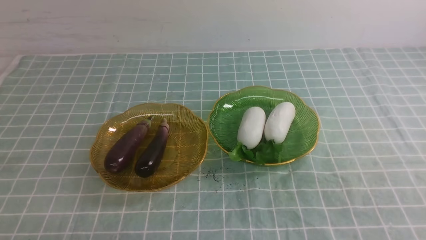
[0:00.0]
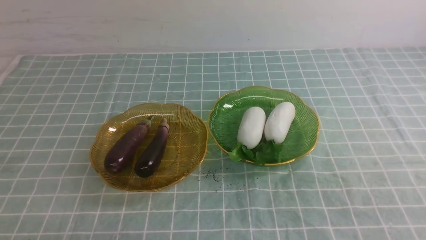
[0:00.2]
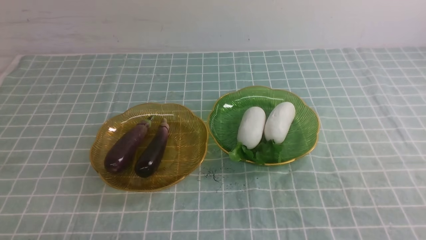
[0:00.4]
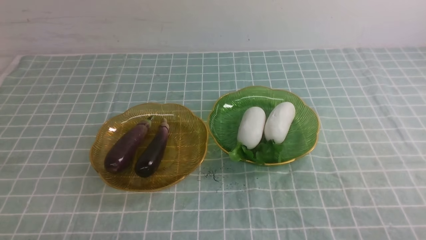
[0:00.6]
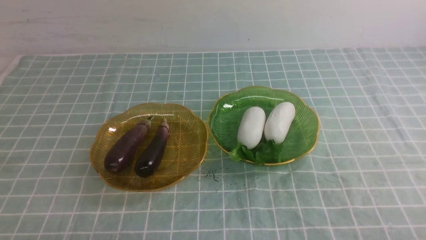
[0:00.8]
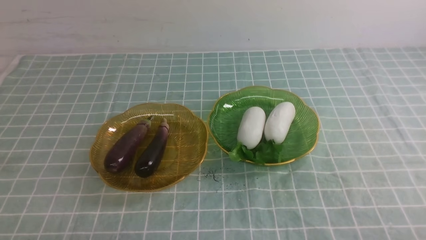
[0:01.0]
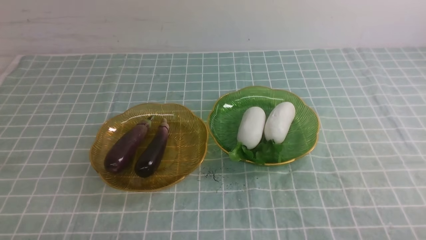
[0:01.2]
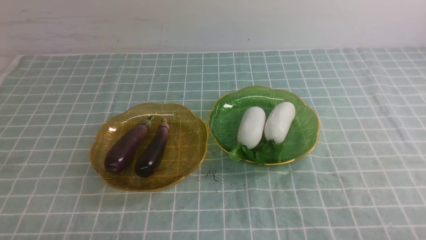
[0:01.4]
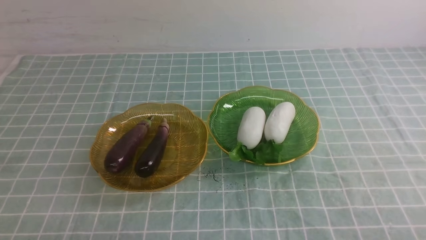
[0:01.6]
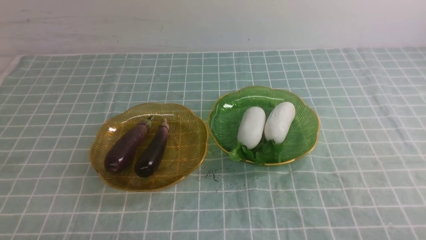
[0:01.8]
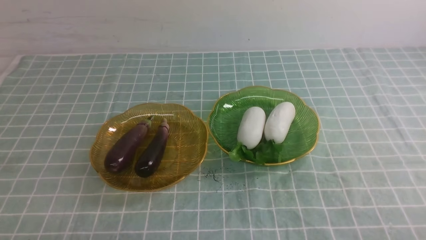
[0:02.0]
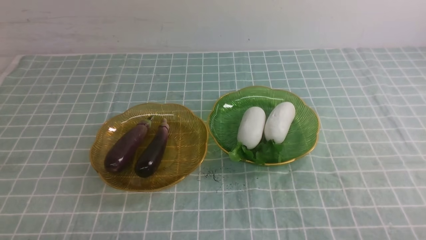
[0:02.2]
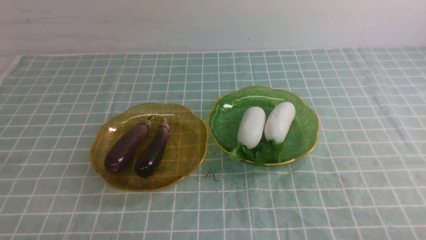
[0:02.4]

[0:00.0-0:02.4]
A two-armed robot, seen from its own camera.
0:01.2 to 0:02.4: Both grippers stay put.

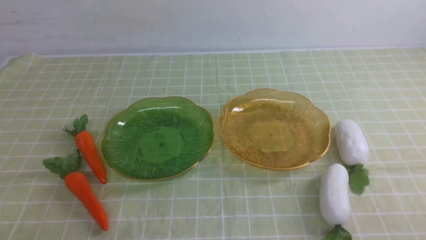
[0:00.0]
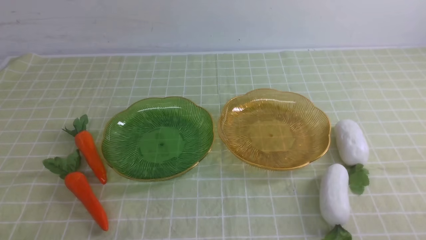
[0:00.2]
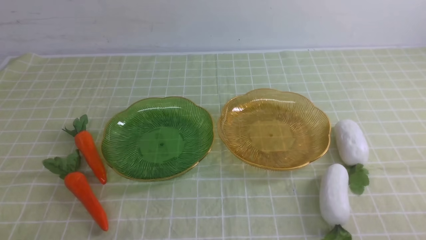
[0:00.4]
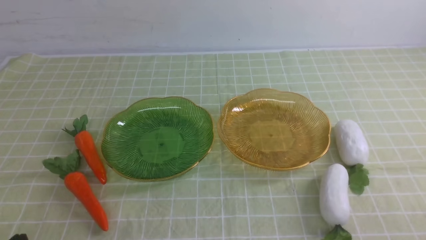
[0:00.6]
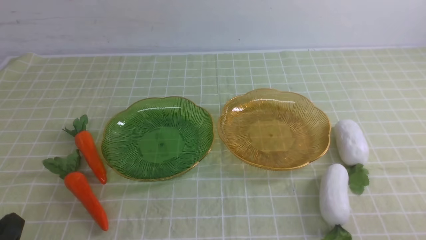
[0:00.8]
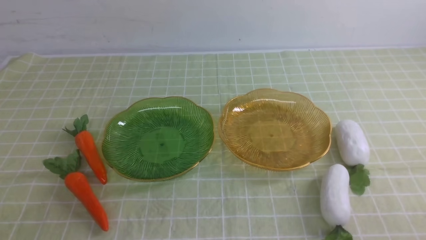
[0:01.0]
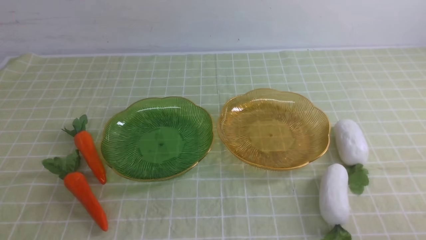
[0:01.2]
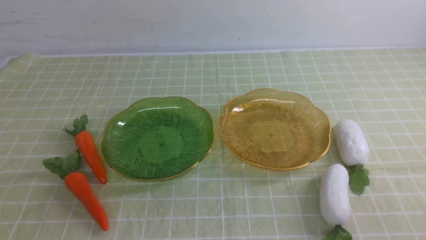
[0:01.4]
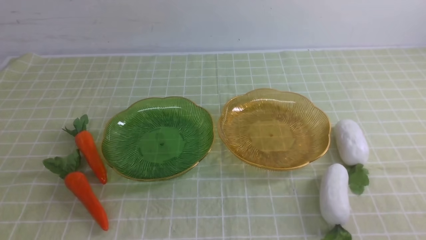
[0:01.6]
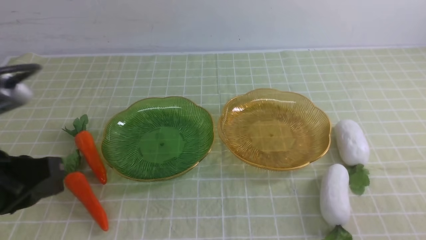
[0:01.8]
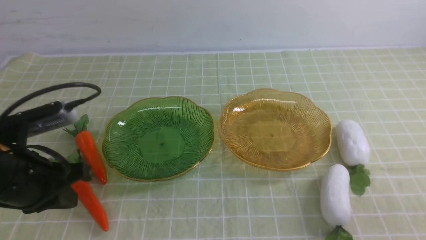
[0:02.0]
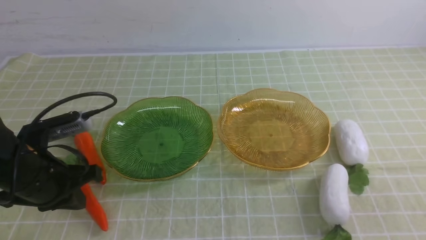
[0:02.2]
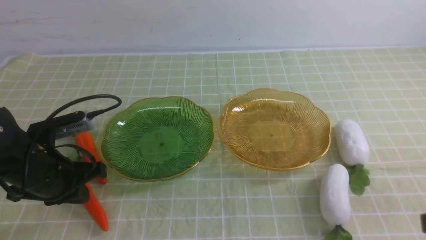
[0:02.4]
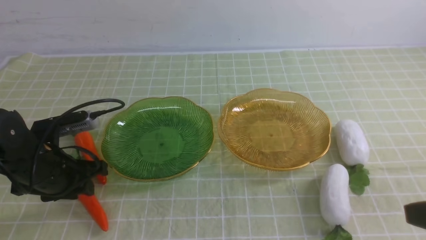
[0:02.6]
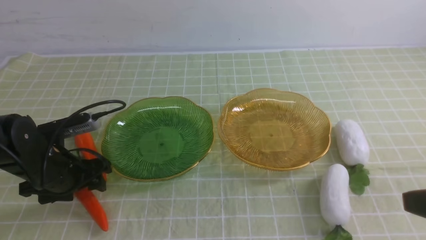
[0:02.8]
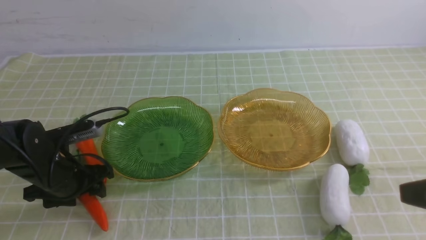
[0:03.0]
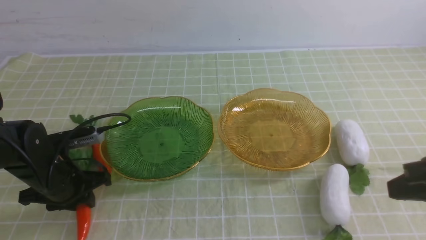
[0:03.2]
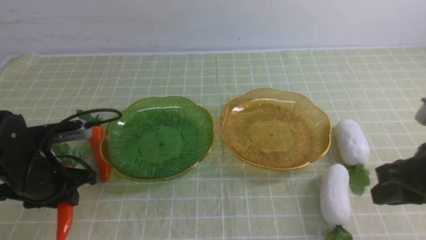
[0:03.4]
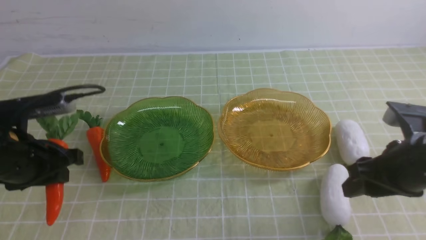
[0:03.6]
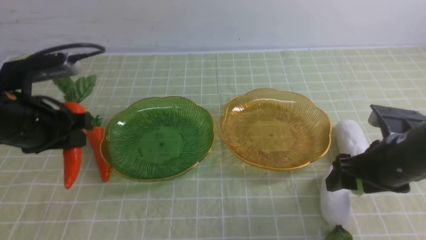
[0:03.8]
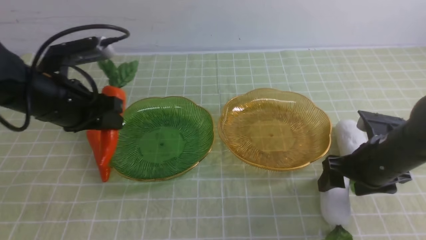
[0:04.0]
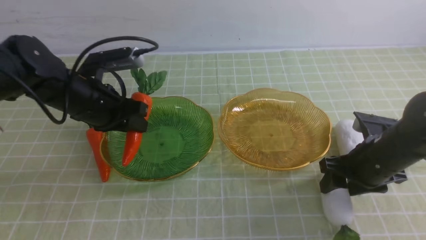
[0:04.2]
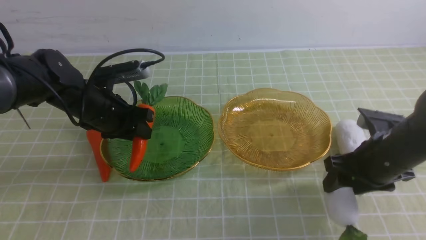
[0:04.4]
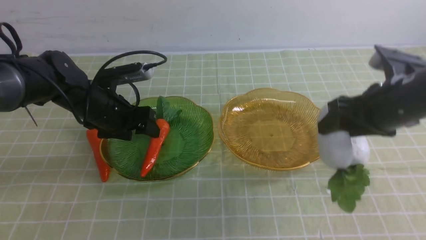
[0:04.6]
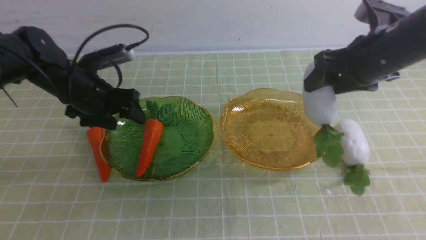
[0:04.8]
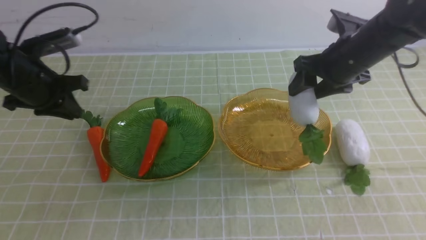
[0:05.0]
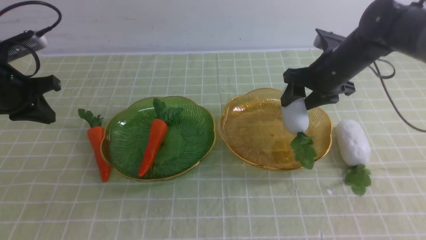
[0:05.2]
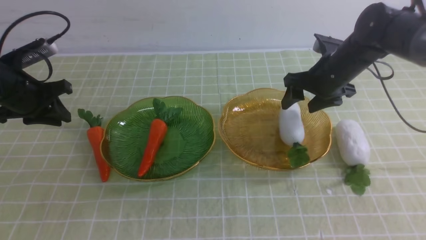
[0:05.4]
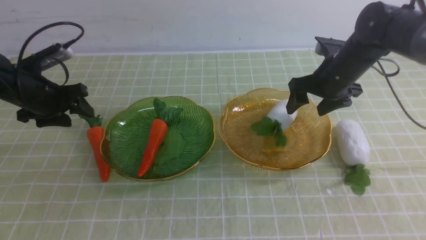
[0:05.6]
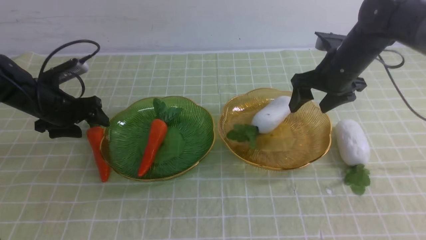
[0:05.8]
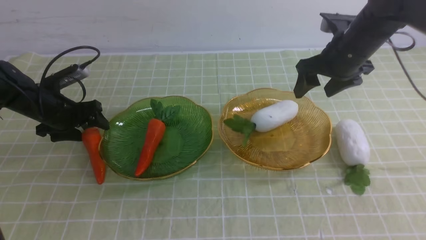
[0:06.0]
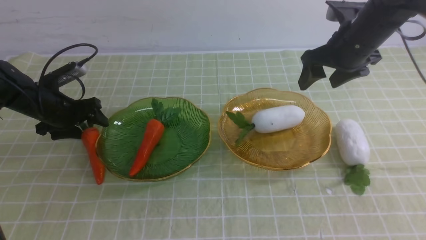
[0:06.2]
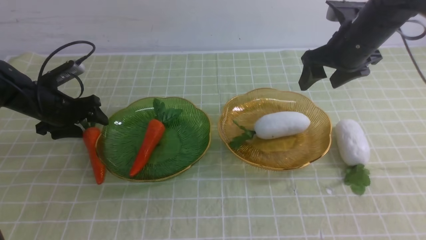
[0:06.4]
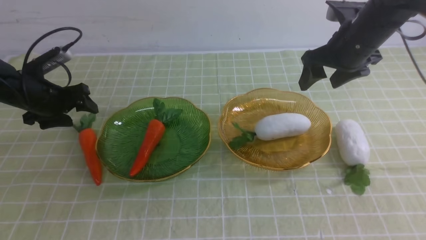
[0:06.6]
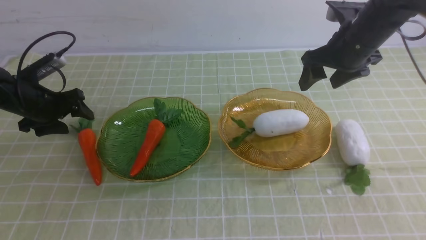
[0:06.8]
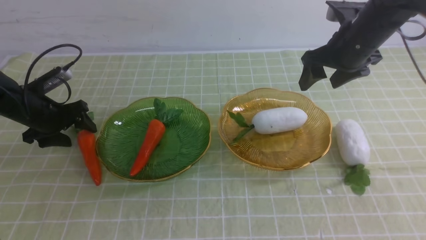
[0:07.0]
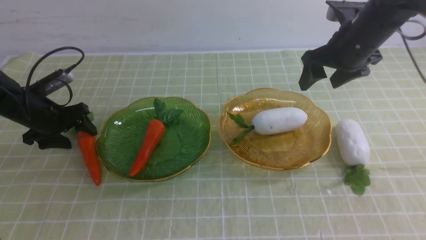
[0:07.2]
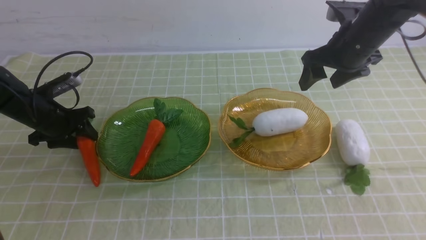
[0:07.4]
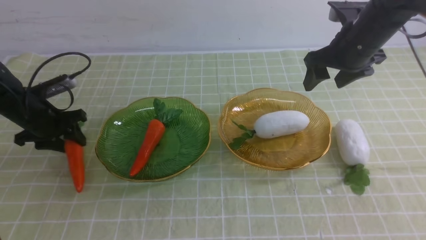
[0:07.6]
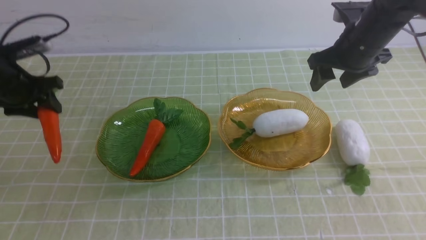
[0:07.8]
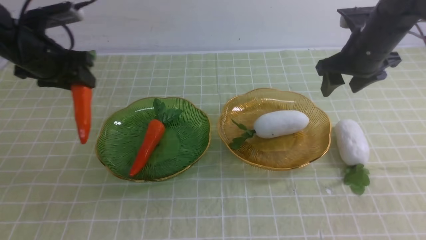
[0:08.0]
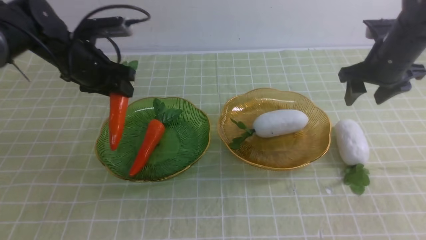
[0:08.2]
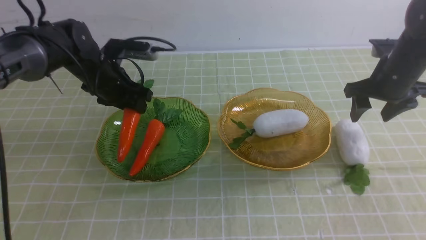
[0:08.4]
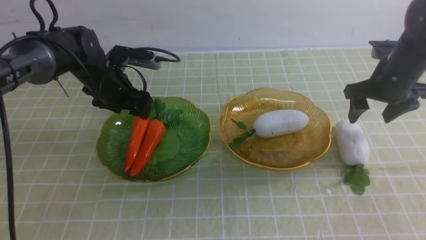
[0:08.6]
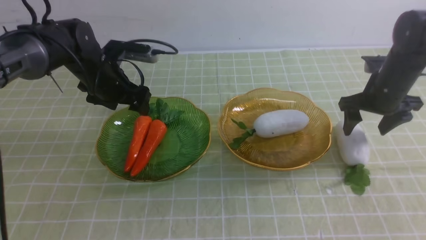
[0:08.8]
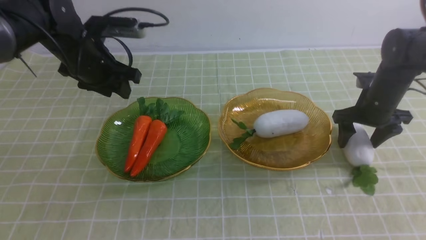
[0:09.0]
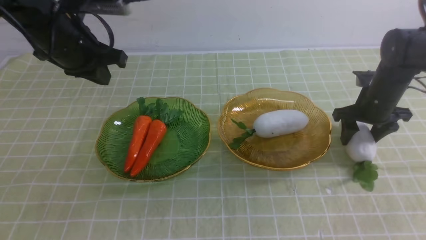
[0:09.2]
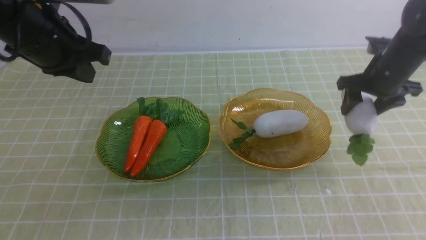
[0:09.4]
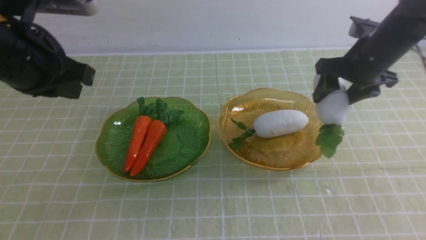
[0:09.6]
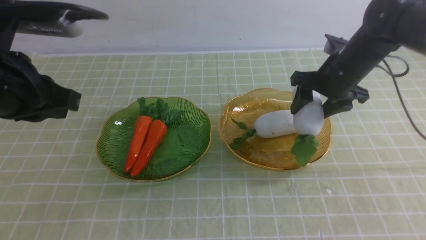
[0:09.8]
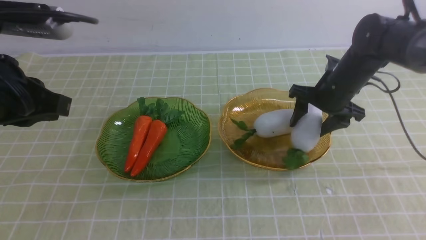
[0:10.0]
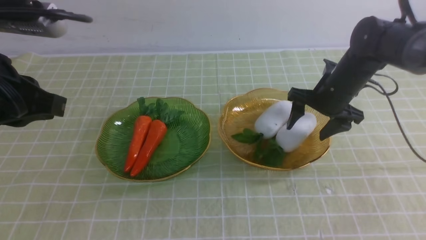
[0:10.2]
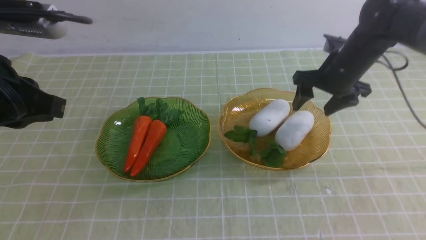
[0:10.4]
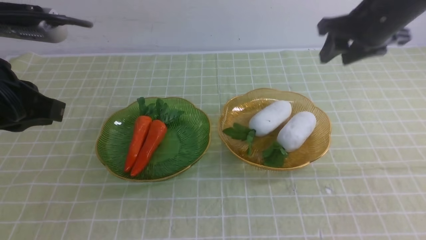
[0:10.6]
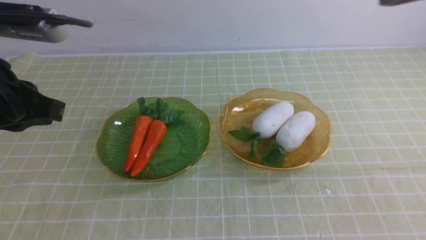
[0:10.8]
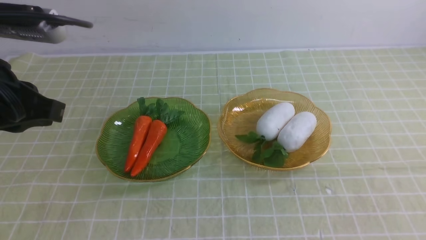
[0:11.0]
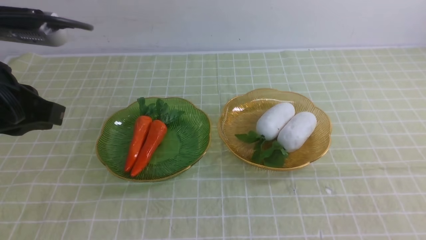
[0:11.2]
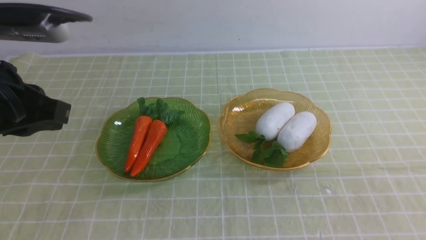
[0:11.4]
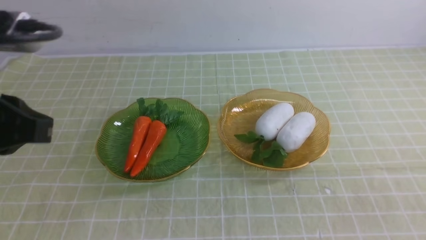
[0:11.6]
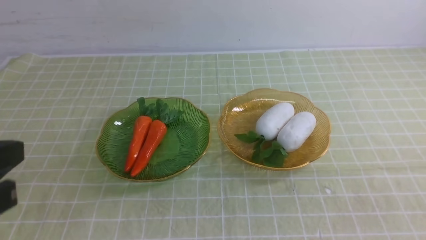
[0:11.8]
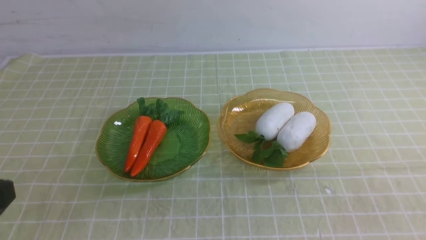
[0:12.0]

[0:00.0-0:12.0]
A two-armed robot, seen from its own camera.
Step, 0:00.0 to 0:05.0: use the left arm to grab a carrot and put it into the left plate.
Step, 0:05.2 to 0:06.2: use the right arm to grab a radish and put it into the right plate.
Step, 0:06.4 to 0:09.0: use the left arm to grab a carrot and put it into the left plate.
Step, 0:09.2 to 0:11.0: use the right arm to grab a radish and put it into the right plate.
0:01.6 to 0:03.0: The left gripper travels forward and downward by some 25 cm, and opens up; the right gripper travels upward and forward by some 15 cm.
0:03.0 to 0:04.4: The right gripper goes about 15 cm forward and downward, and opens; the left gripper shifts some 10 cm forward and upward.
0:04.4 to 0:06.0: The left gripper travels to the left, downward and forward by approximately 15 cm, and closes, then opens again. Meanwhile the right gripper shifts approximately 15 cm forward.
0:06.0 to 0:07.6: The left gripper closes up.
0:07.6 to 0:09.0: The right gripper travels downward and to the right by approximately 15 cm, while the left gripper heads to the right and upward, covering about 15 cm, and opens, then closes again.
0:09.0 to 0:10.4: The left gripper moves backward and upward, some 20 cm, and closes up; the right gripper goes up and down, roughly 10 cm each way, reversing 2 times.
0:10.4 to 0:12.0: The right gripper is displaced backward by roughly 40 cm, and closes its fingers; the left gripper travels backward by approximately 15 cm.
